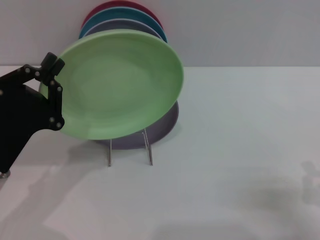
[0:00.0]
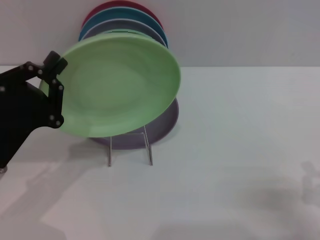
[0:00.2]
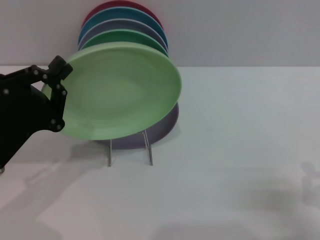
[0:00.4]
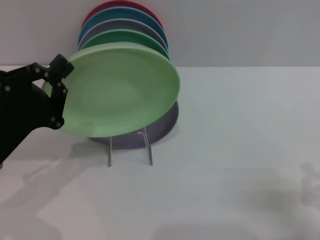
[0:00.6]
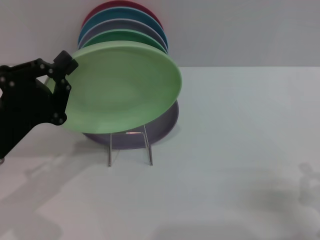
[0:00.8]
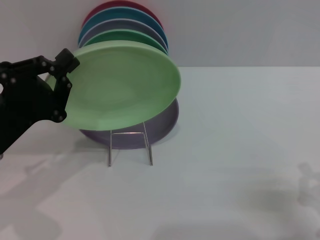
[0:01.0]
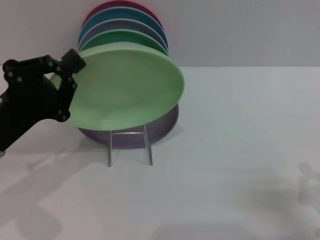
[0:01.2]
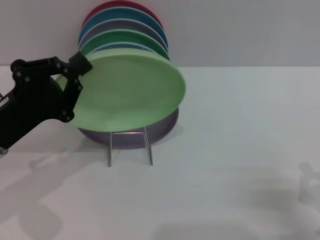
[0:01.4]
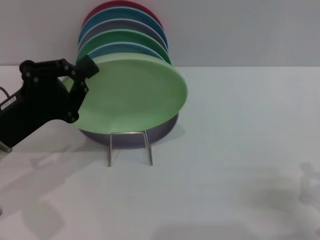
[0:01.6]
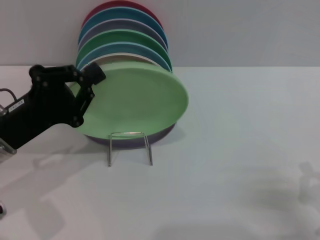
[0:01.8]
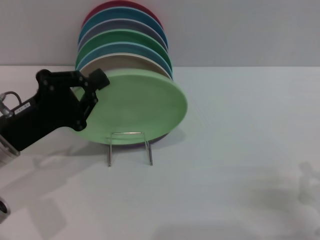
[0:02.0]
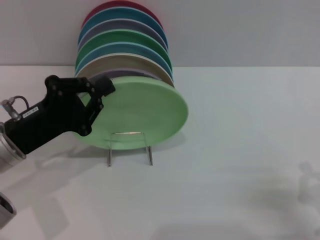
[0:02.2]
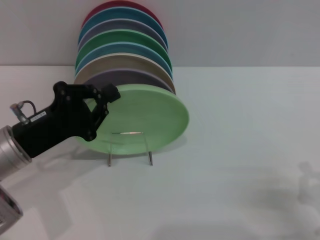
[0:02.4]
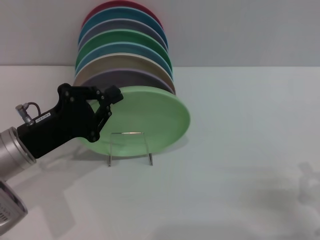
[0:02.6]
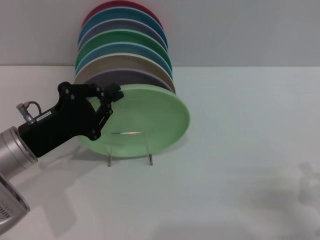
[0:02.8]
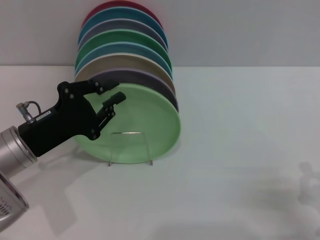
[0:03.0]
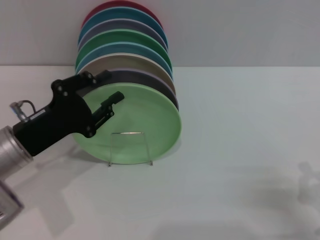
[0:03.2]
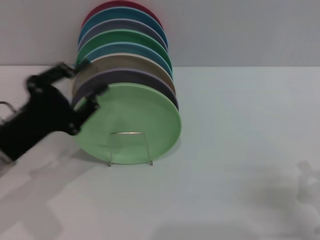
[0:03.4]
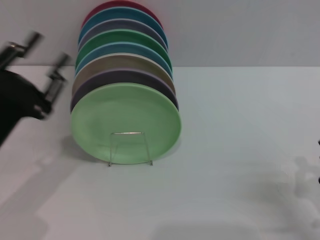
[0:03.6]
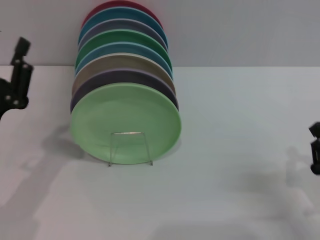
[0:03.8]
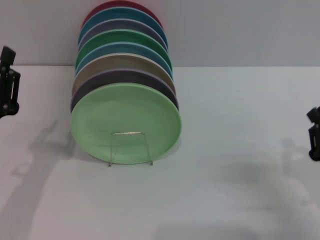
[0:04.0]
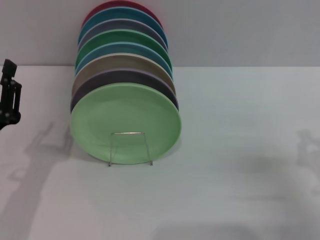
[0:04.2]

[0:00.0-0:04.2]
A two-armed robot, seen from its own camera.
Task of the whole recording: Grip the plate with one hand, pass it to the other, then set it on the shelf.
Step, 0:00.0 to 0:03.4: Place the plate on the shelf with the left gripper.
0:01.4 to 0:02.8: The grippers stay close to where they were, moving slightly.
0:02.8 to 0:04.2: The left gripper heads backward, covering about 5 cm, and opens its fingers. Meanwhile the right gripper travels forward by some 5 cm.
